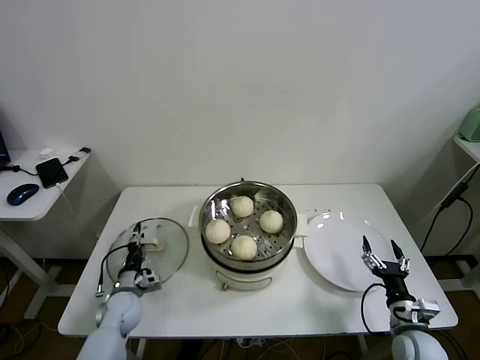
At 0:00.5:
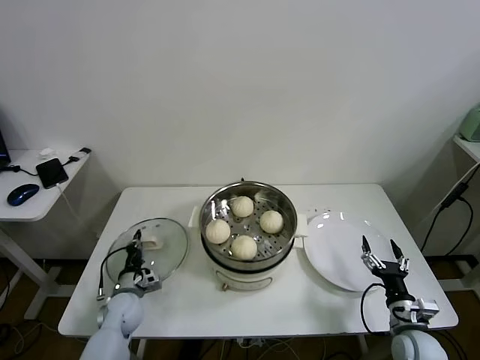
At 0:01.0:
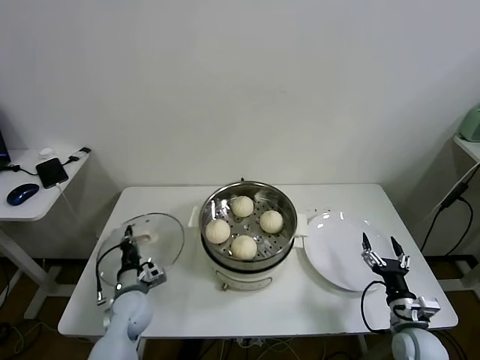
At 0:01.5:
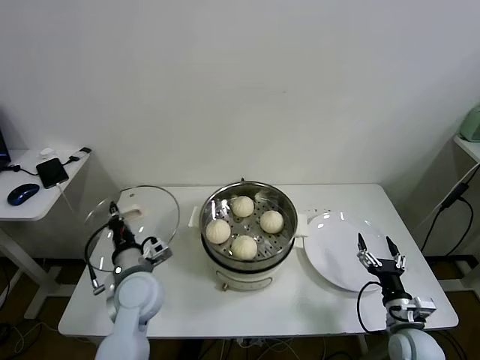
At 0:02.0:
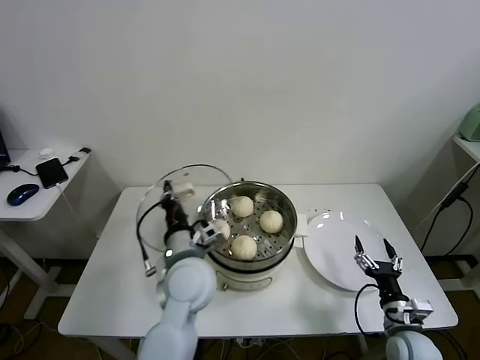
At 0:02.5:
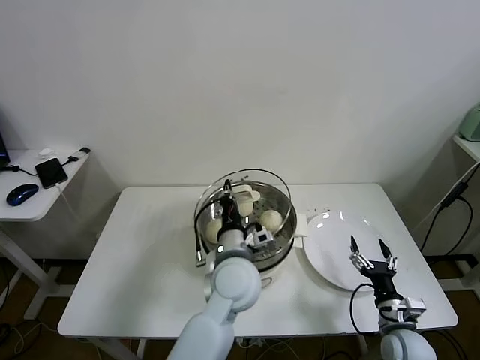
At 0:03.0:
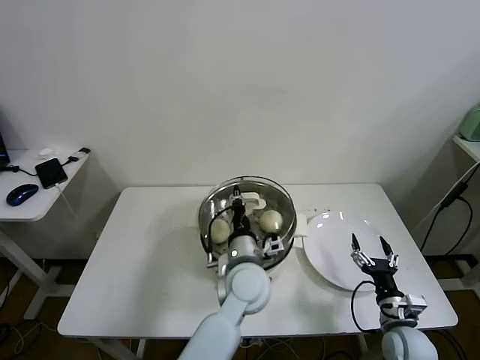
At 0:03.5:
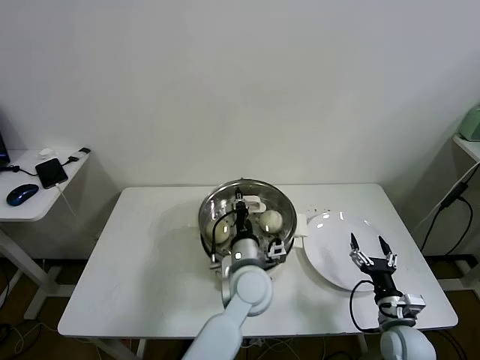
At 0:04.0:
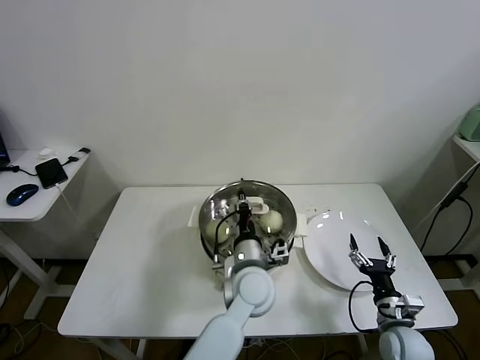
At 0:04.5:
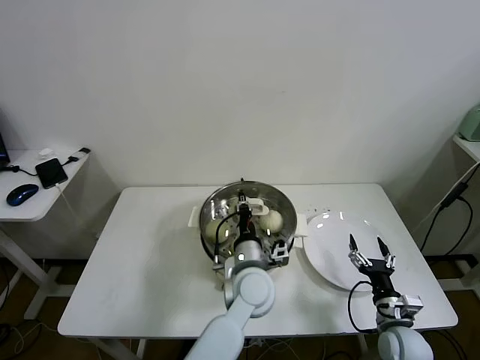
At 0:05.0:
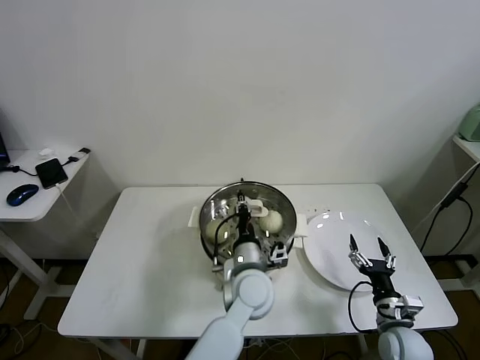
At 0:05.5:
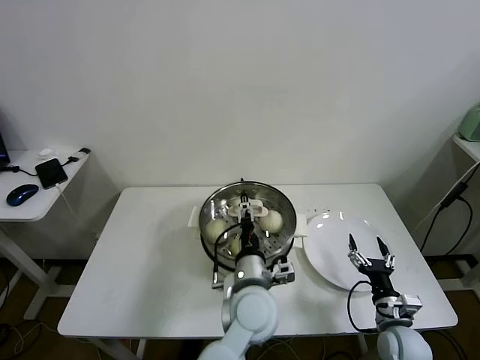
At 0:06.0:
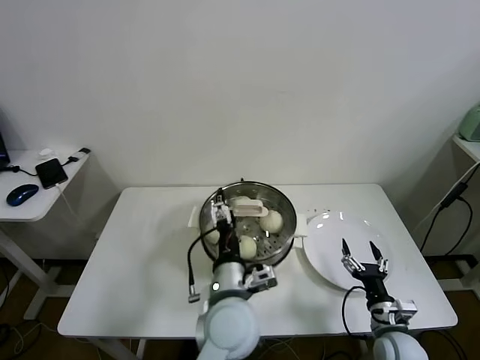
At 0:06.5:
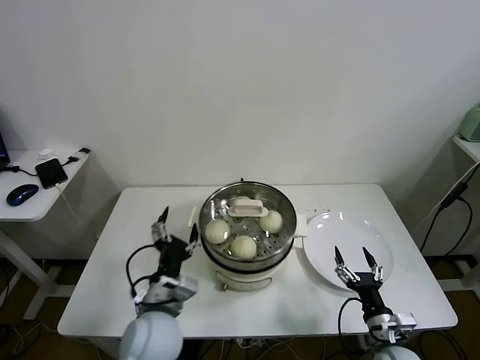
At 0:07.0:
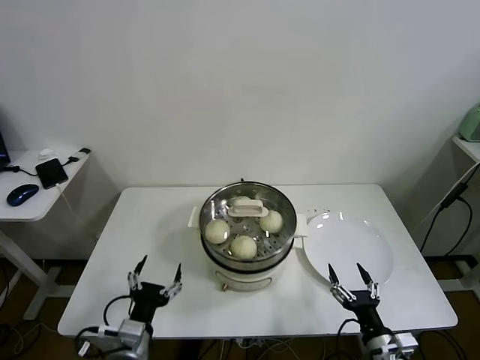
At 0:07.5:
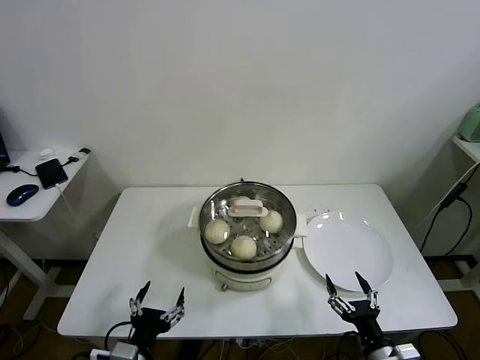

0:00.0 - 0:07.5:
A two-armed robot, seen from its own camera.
Task of the whole recording: take steamed baozi put them in steamer.
Step, 0:01.0 - 0:05.0: Place the pot lid on the steamer with left gripper.
0:00.0 - 0:02.0: The left gripper goes some 30 cm upward and to the right, and closes its fingers.
0:02.0 - 0:04.0: The left gripper moves to the right and downward, some 15 cm.
0:04.0 - 0:05.5: The left gripper opens its fingers.
0:05.5 - 0:07.5: The left gripper travels to the left and backward by about 30 cm. Meanwhile the right gripper travels backward by approximately 10 cm.
